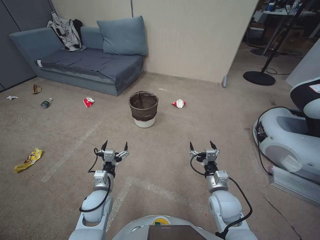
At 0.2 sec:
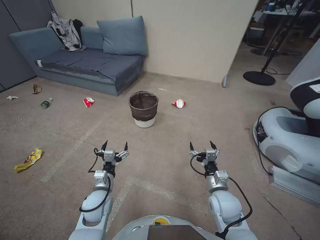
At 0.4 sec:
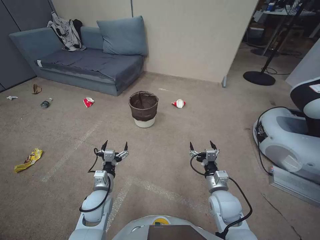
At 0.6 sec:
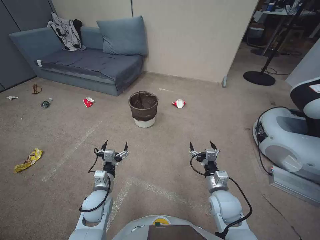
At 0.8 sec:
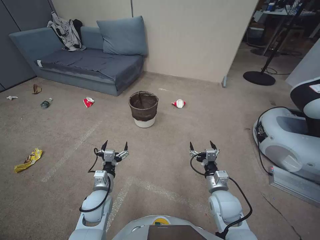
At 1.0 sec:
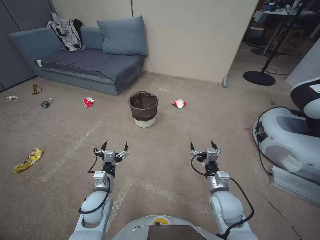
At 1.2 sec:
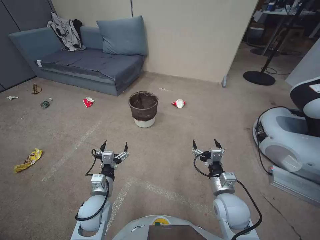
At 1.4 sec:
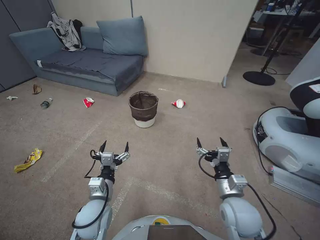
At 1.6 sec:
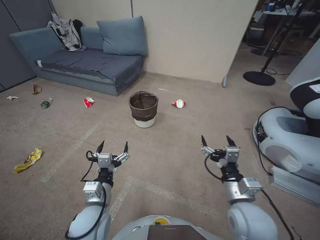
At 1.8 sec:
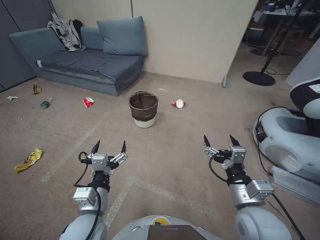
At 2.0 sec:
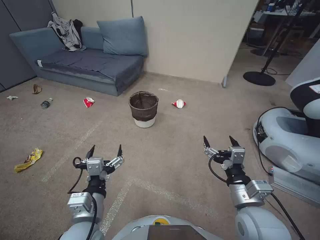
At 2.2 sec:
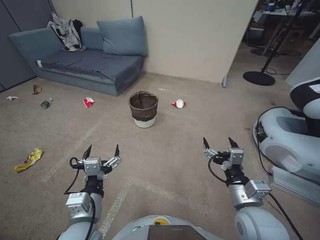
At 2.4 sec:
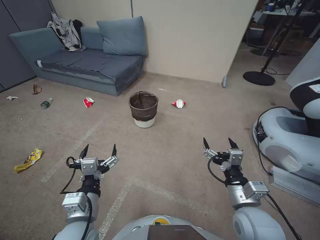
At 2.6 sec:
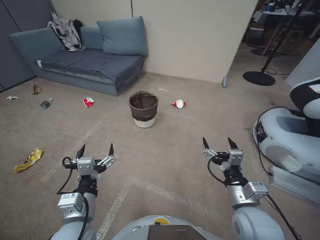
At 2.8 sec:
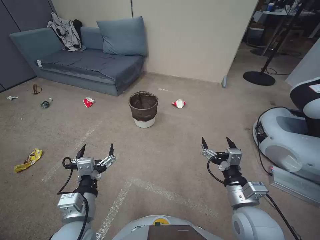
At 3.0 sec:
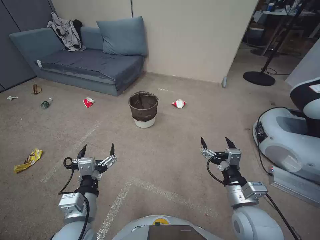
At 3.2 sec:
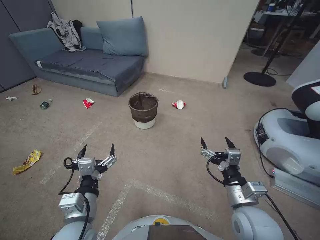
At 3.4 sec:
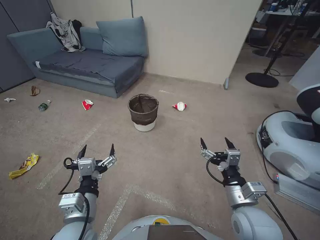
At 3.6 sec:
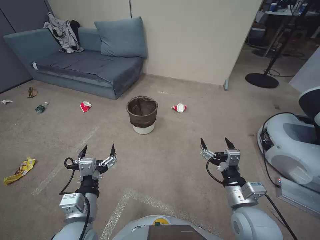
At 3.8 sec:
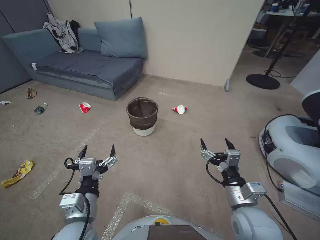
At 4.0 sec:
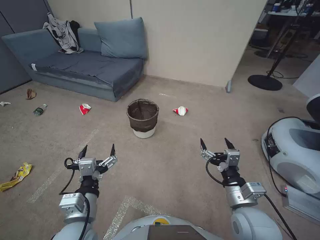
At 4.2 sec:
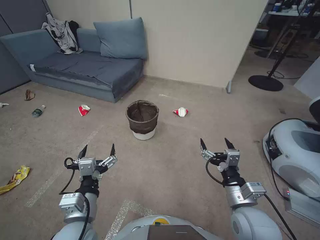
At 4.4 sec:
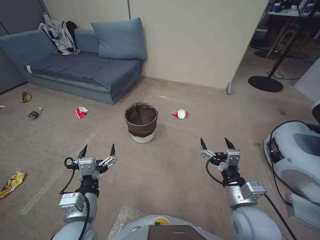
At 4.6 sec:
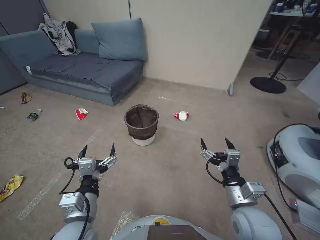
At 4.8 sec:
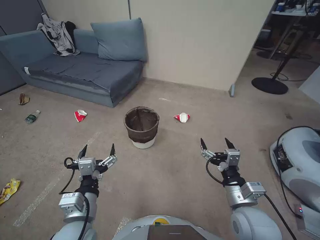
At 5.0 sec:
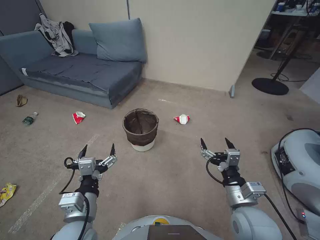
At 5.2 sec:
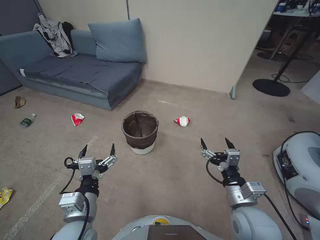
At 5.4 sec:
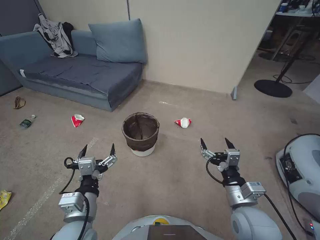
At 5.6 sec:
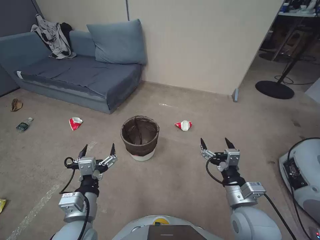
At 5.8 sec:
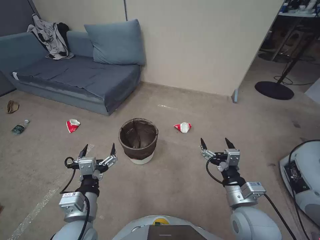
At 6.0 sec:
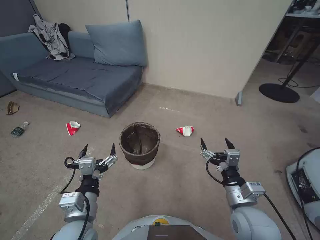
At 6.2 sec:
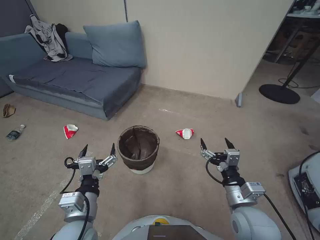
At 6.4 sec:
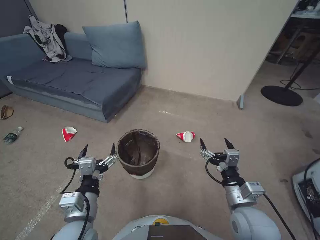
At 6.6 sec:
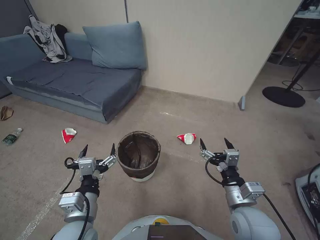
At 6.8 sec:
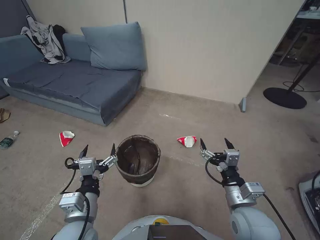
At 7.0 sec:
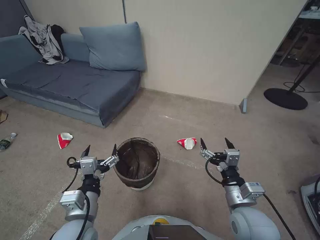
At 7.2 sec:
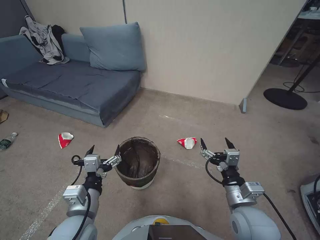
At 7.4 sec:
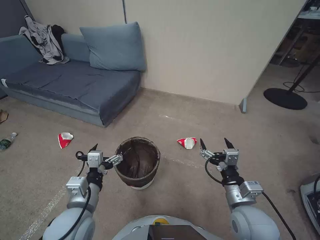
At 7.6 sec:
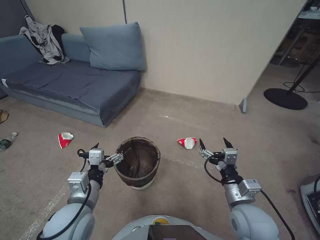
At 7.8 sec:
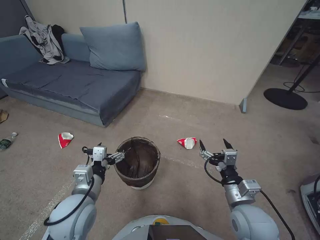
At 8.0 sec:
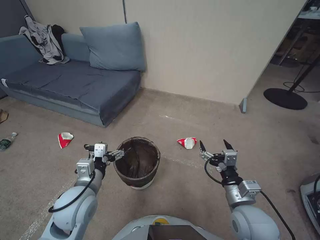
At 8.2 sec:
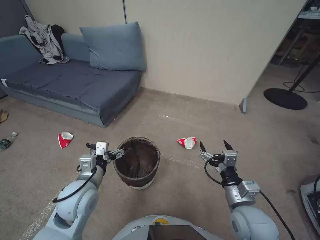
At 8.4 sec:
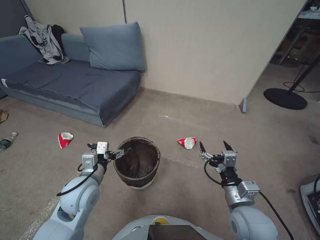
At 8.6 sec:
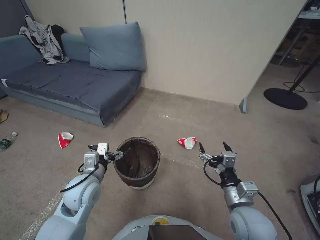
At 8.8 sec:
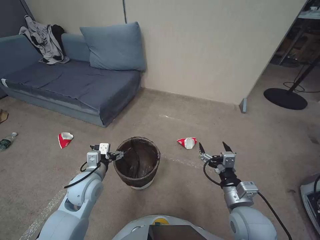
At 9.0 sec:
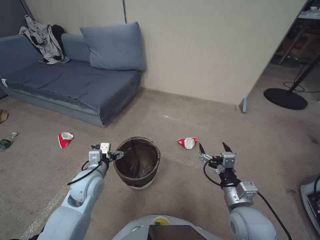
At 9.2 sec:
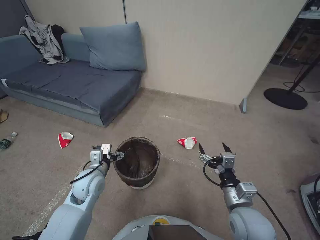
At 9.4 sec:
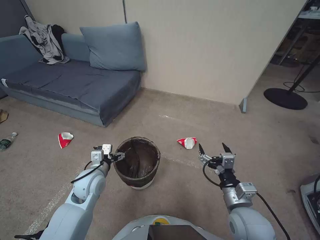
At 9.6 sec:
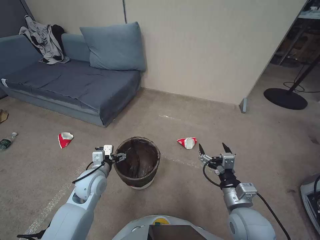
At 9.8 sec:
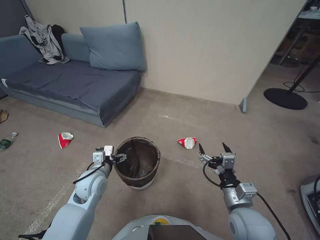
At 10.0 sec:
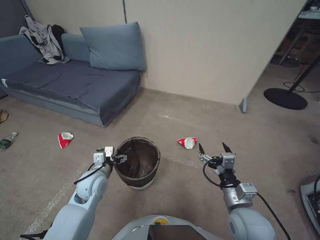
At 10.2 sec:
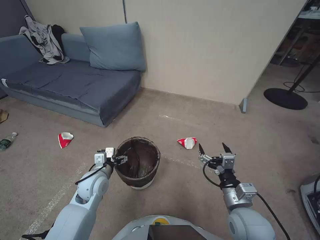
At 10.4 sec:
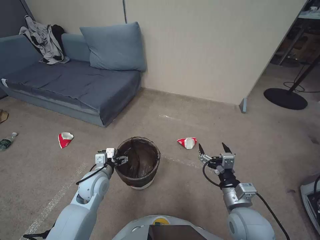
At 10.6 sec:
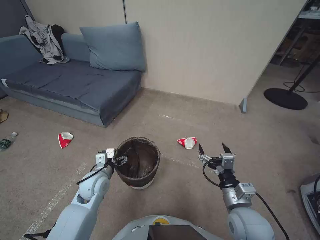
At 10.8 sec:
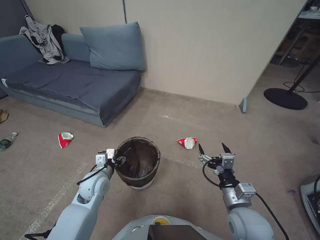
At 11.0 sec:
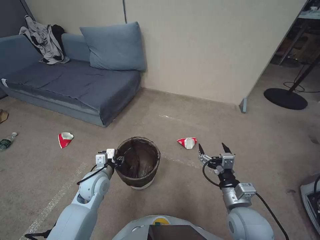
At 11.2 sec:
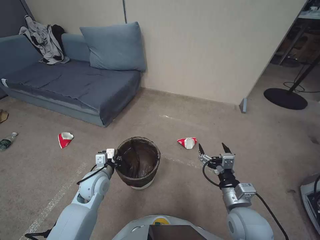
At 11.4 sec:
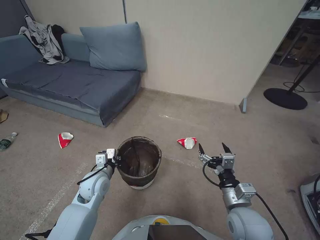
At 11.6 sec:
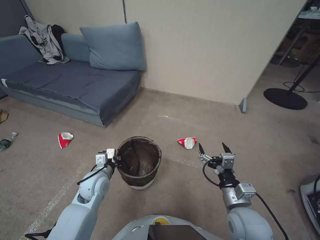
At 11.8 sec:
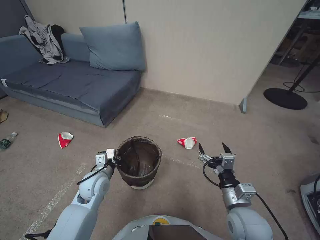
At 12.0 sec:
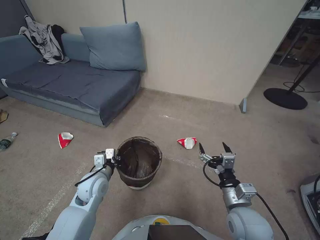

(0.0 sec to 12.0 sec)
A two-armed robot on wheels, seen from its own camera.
Task of the whole recording: Pick up the trash bin, then pick up the garbage from the floor and place it into the trash bin.
1.6 sec - 3.0 sec: The left gripper travels upward by approximately 5 cm.
3.0 sec - 6.0 sec: Both grippers stay about where they are.
6.0 sec - 7.6 sec: The grippers move only a little.
7.6 sec - 9.0 sec: The left gripper heads forward and downward, covering about 10 cm.
9.0 sec - 10.4 sec: The grippers move only a little.
10.4 sec - 12.0 sec: The left gripper closes up.

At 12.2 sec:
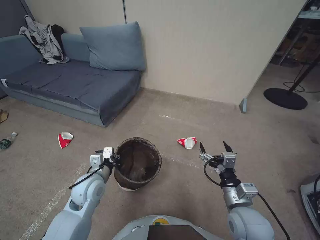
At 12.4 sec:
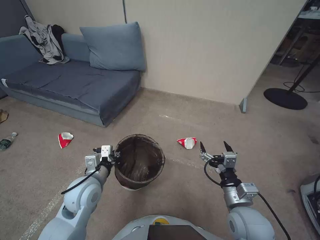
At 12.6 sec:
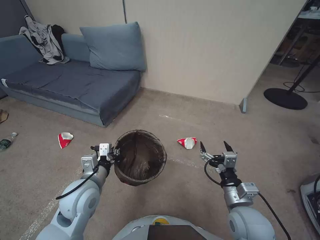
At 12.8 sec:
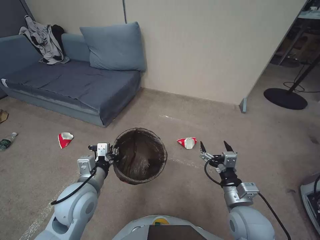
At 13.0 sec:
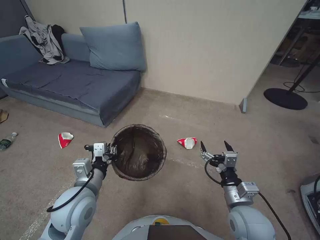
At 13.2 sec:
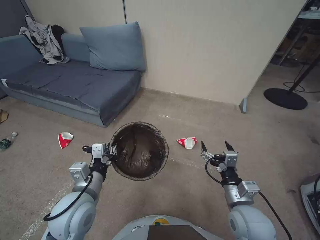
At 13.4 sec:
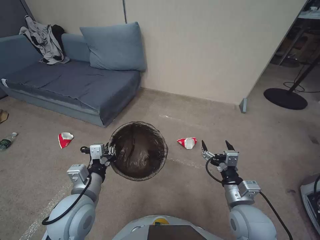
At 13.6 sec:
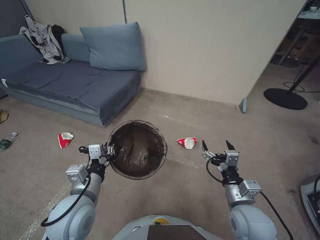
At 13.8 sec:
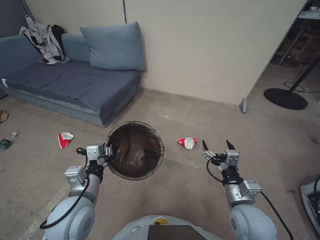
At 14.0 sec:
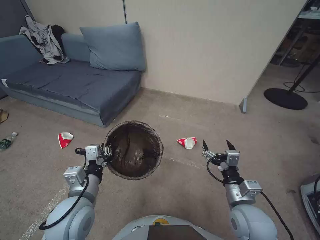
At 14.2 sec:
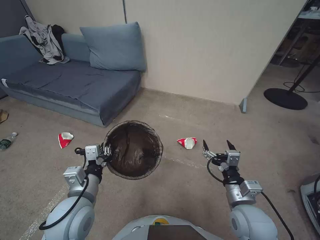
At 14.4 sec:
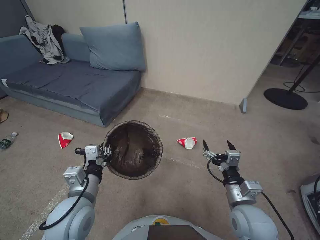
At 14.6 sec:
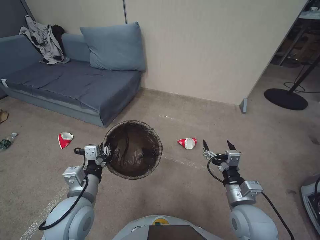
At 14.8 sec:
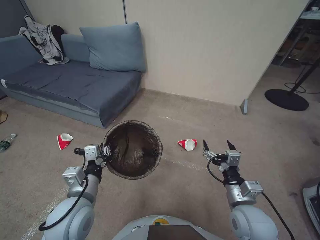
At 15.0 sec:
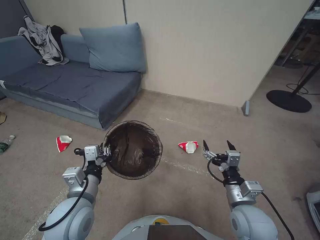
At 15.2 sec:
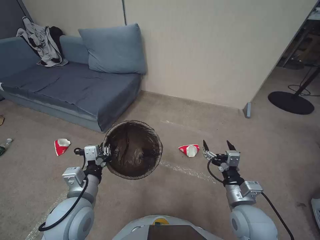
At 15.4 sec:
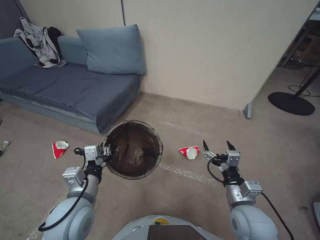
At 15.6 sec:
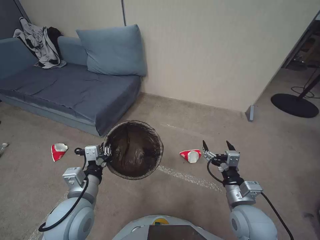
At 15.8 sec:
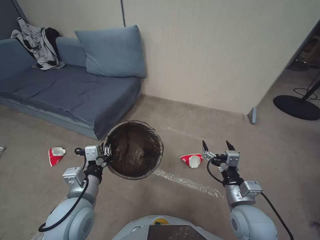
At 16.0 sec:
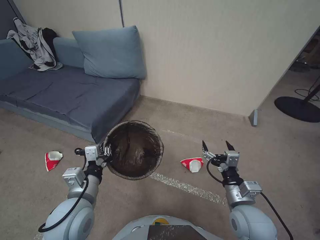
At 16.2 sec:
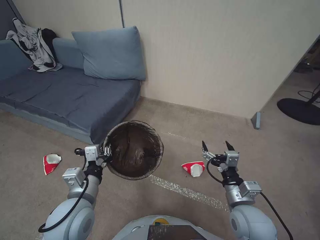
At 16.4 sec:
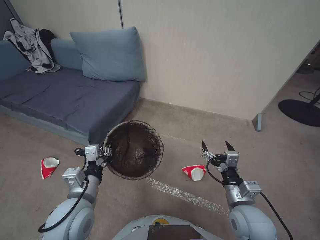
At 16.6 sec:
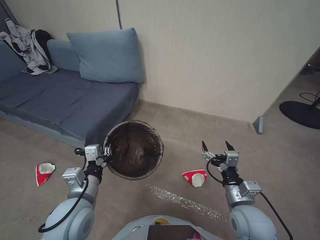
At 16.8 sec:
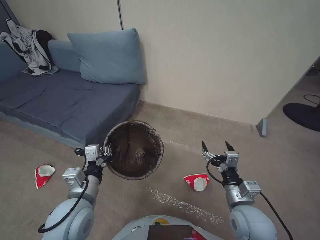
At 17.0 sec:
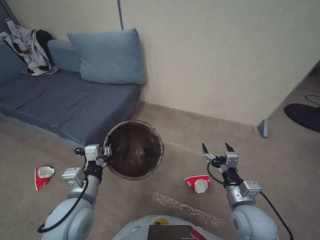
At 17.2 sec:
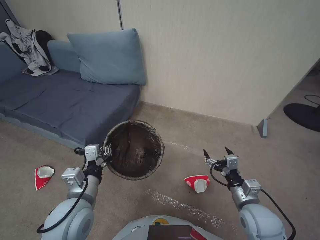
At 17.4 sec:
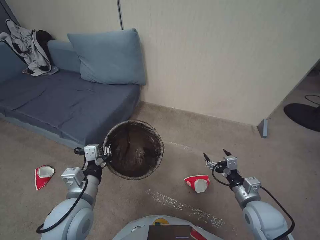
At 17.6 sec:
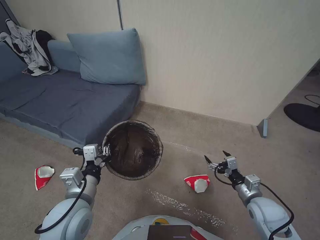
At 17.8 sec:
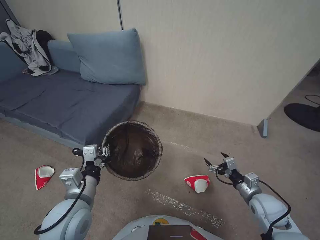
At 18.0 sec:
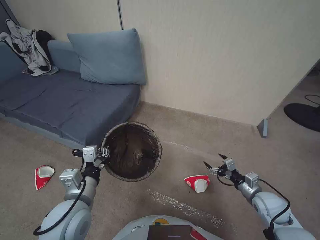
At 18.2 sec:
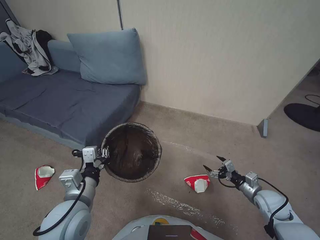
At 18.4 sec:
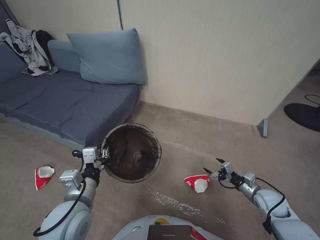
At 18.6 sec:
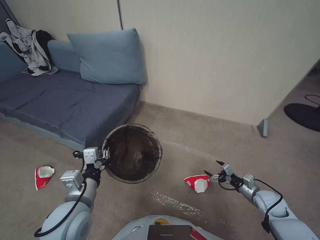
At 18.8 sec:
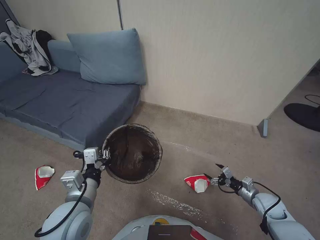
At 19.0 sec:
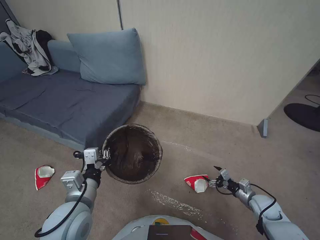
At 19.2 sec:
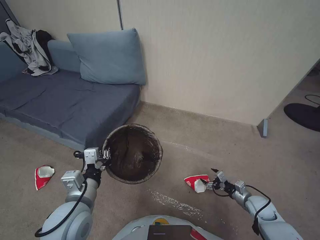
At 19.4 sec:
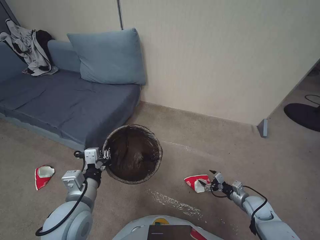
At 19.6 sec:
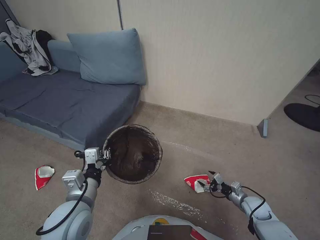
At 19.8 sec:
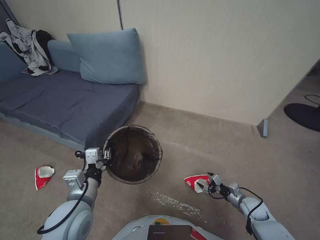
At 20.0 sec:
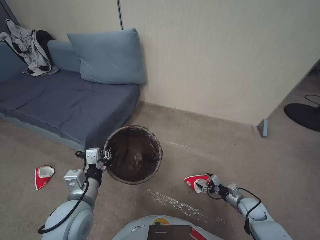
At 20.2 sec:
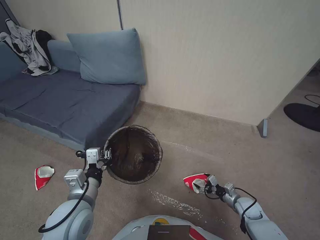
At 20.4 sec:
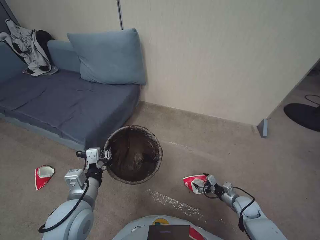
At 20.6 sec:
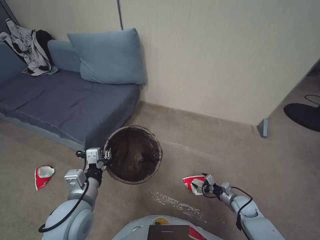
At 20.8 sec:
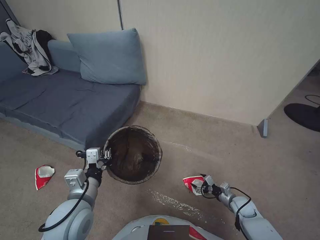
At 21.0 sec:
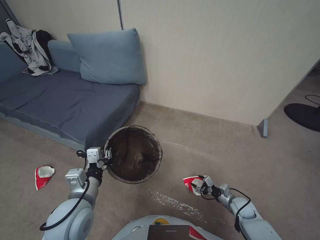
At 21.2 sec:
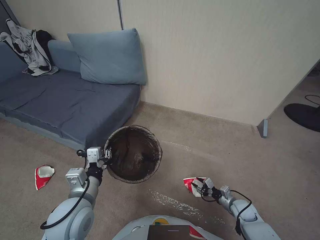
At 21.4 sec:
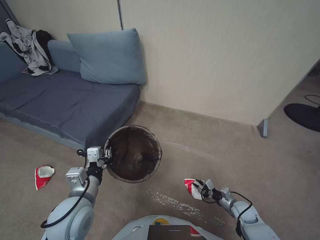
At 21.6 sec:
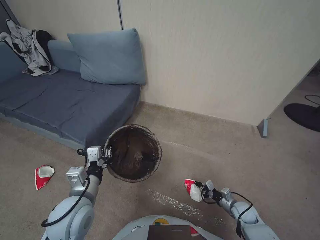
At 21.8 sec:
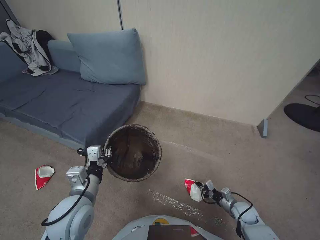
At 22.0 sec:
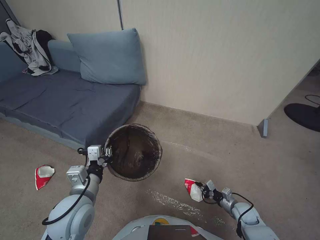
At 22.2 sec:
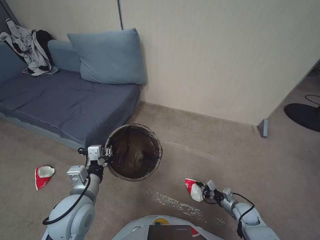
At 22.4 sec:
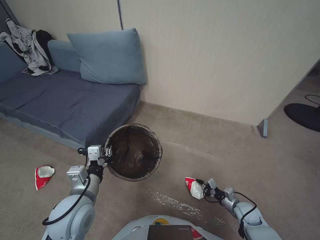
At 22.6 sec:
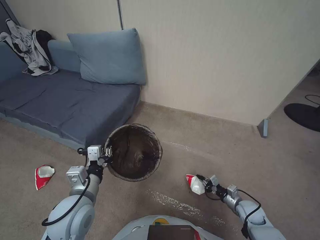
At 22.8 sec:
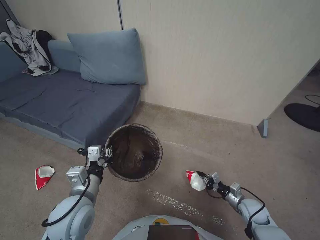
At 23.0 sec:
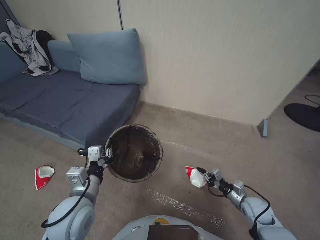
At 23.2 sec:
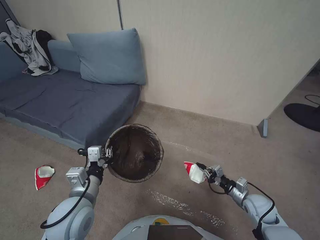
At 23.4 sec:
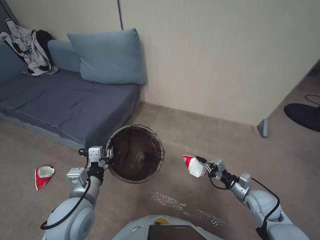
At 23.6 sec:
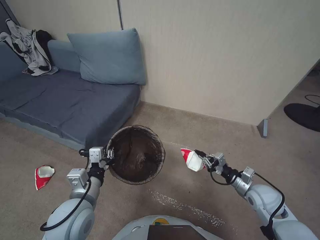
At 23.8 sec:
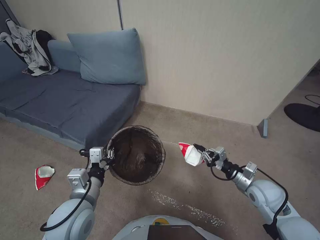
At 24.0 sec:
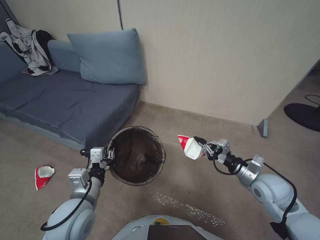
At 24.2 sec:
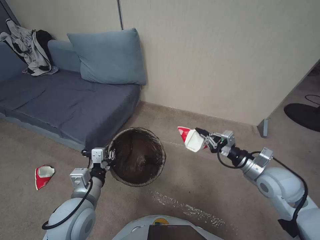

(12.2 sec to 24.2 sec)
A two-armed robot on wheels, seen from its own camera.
Task of the whole recording: Pick up the trash bin, then pick up the garbage from the floor and place it into the trash bin.
12.2 sec - 13.8 sec: The left gripper heads backward and upward, covering about 15 cm.
13.8 sec - 16.6 sec: Neither gripper changes place.
16.6 sec - 18.2 sec: The right gripper shifts approximately 20 cm to the right and downward.
18.2 sec - 19.8 sec: The right gripper heads downward, covering about 10 cm.
19.8 sec - 21.2 sec: The right gripper closes.
21.2 sec - 22.6 sec: The right gripper closes.
22.6 sec - 24.2 sec: The right gripper heads upward, covering some 25 cm.
